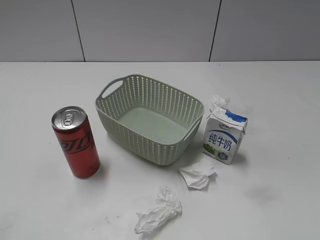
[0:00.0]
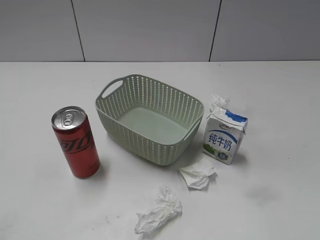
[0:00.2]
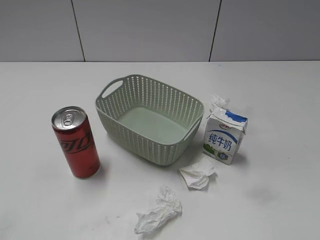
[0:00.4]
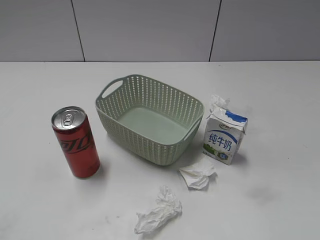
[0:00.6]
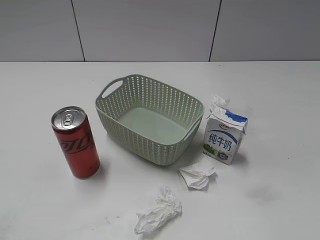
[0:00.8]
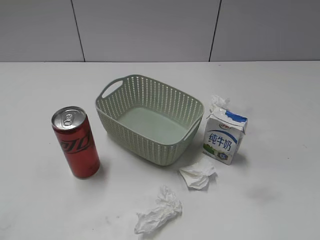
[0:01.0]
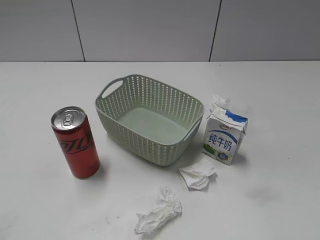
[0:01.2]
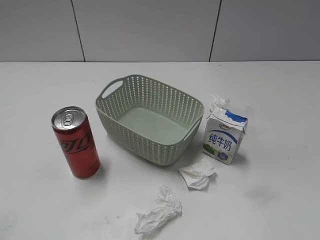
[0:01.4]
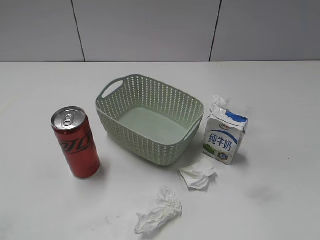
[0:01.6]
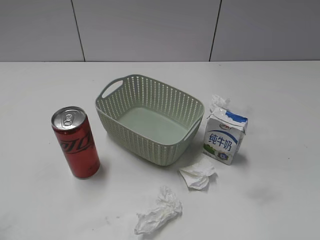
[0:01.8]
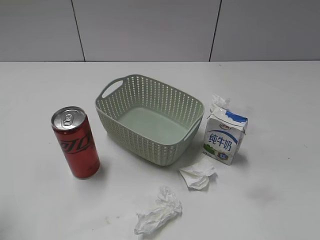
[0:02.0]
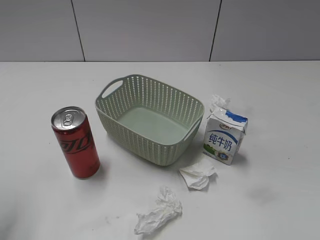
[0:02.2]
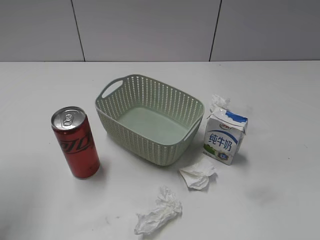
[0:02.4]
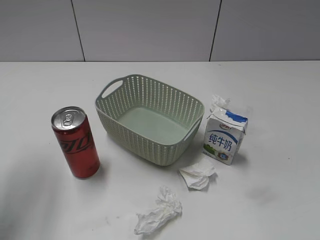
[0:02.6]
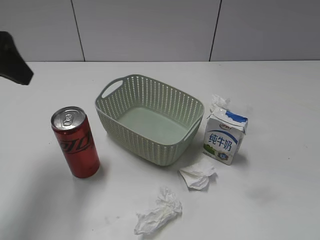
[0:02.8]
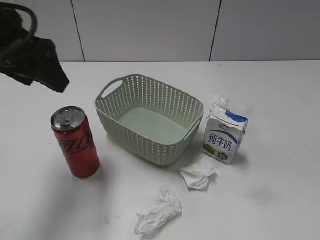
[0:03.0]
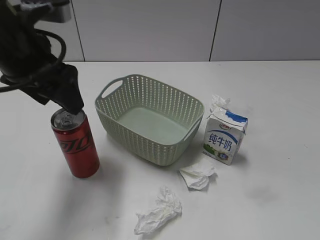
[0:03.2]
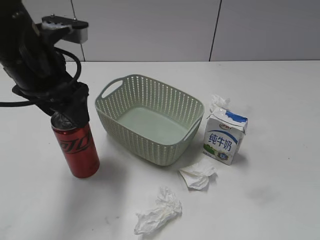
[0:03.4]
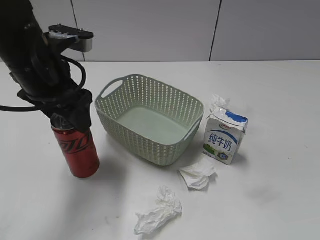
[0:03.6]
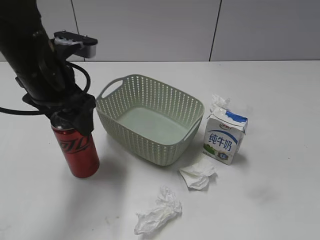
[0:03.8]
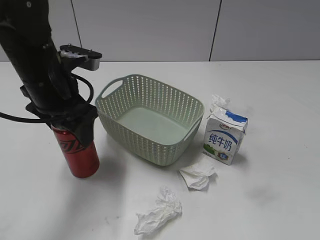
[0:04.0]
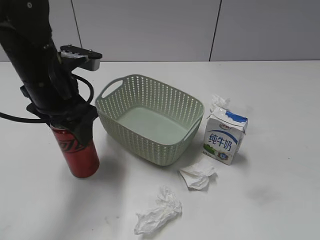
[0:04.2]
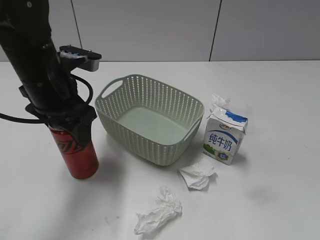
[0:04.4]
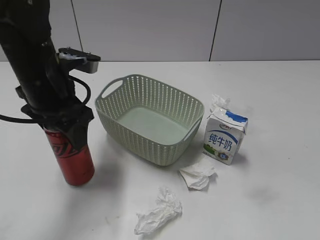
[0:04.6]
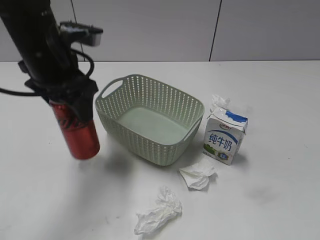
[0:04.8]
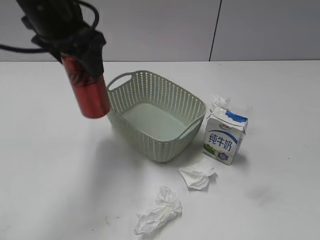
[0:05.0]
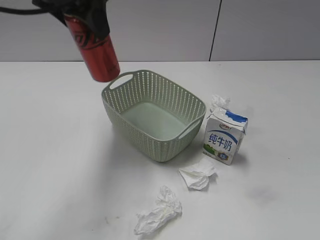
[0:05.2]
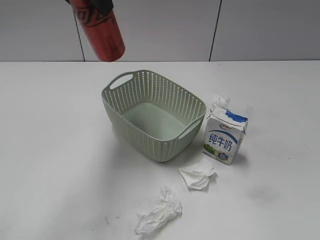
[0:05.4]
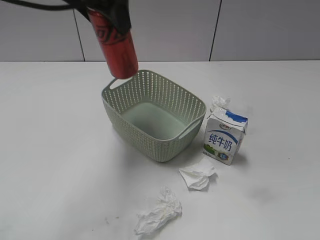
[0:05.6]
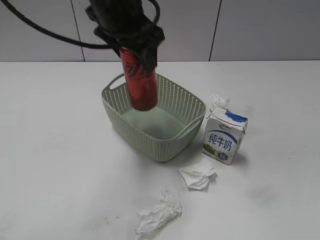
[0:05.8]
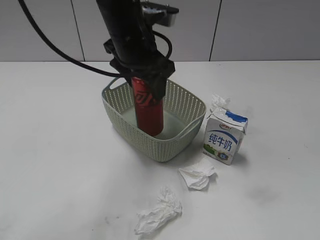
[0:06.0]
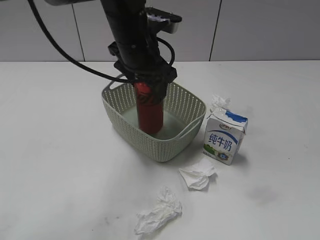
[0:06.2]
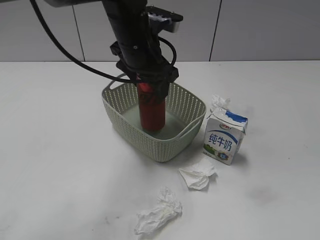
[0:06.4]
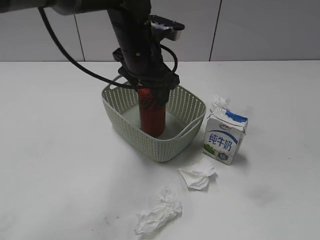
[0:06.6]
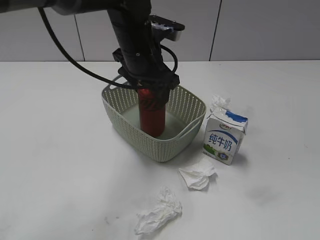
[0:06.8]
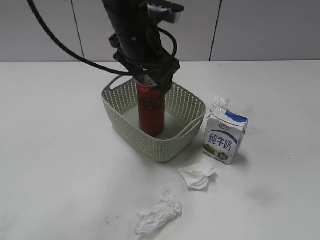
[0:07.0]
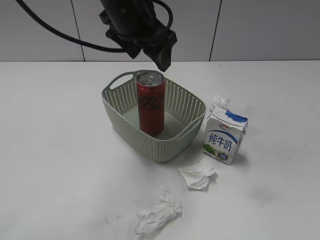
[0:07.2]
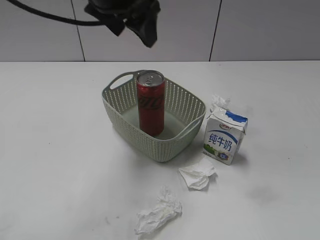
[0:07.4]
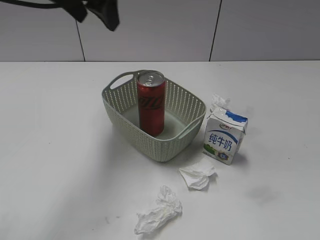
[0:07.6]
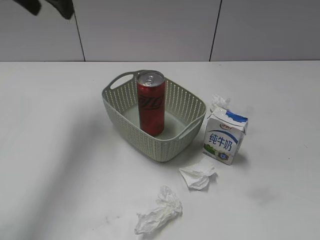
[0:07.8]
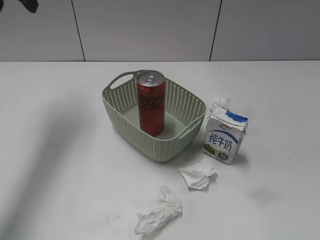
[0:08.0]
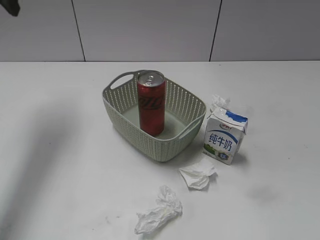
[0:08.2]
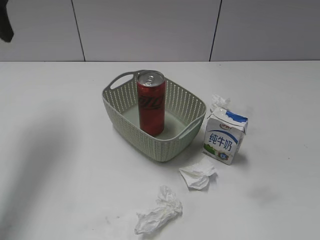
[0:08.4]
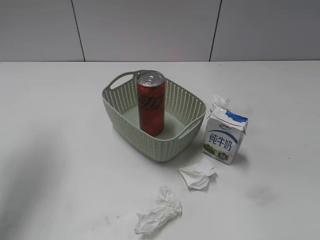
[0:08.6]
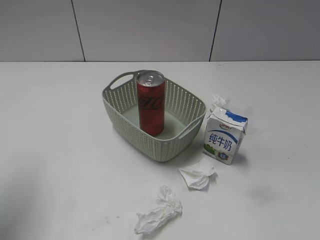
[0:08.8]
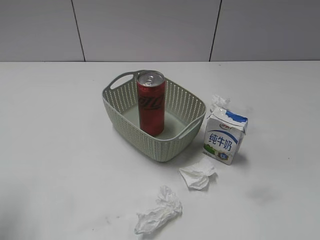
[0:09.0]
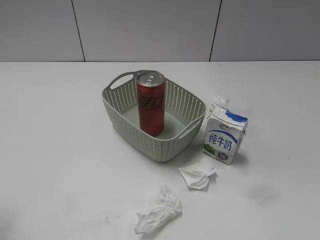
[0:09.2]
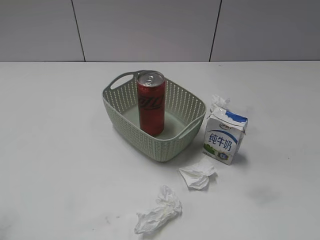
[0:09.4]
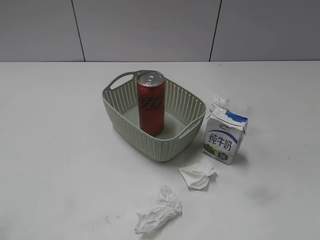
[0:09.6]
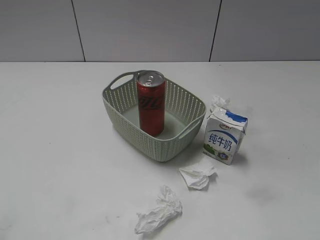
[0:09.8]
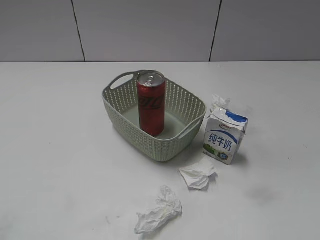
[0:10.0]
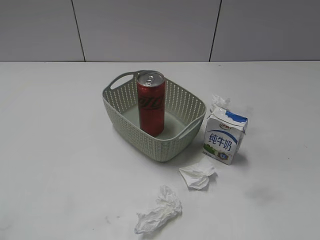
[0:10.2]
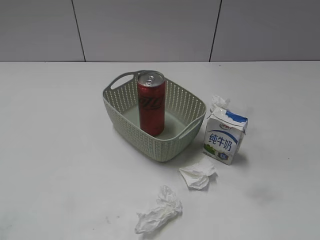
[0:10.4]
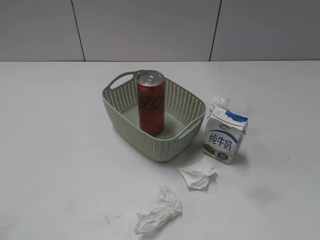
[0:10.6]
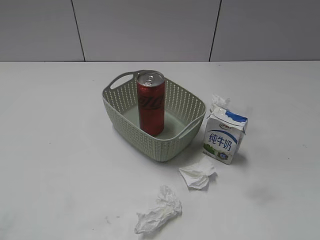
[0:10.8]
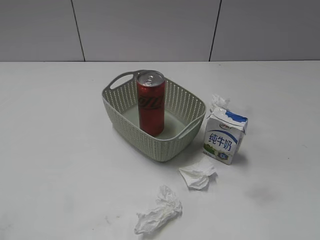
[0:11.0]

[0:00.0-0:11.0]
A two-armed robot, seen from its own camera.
Step, 0:02.8 to 0:04.4: Grasp the cola can with left gripper.
Step, 0:04.6 to 0:07.2: Place the cola can in the basket with left gripper.
0:01.6 to 0:03.2: The left gripper goes approximately 25 cm forward and to the right, and opens its fingers.
0:03.2 to 0:04.8: The left gripper moves roughly 5 cm, and closes.
0:04.8 to 0:06.2: The left gripper is displaced to the right and forward by some 15 cm, and goes upward and returns, some 15 cm each way.
0:06.2 to 0:07.8: The left gripper moves to the left and upward, some 20 cm, and opens up.
0:07.8 to 0:09.4: The left gripper is displaced backward by approximately 30 cm.
